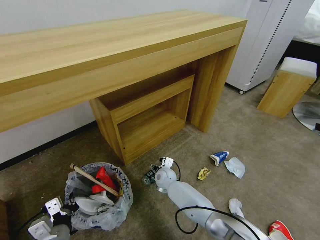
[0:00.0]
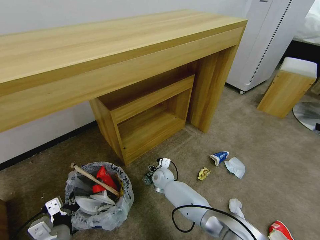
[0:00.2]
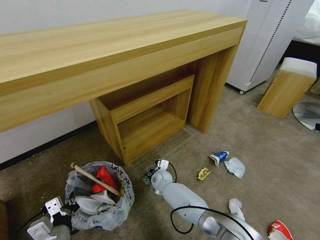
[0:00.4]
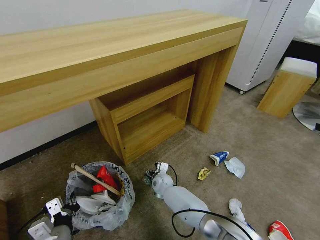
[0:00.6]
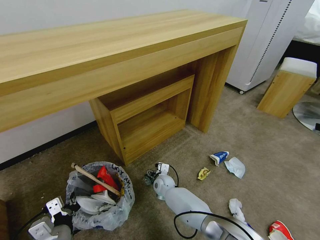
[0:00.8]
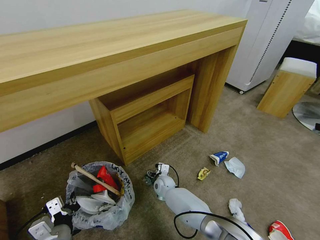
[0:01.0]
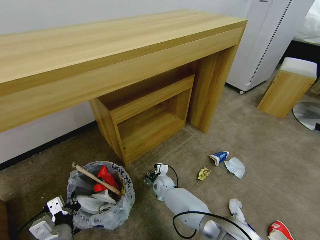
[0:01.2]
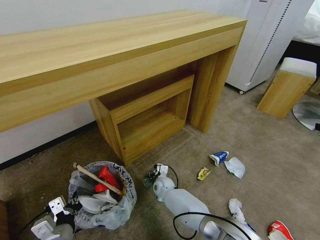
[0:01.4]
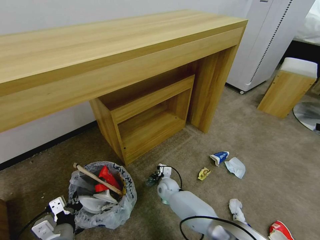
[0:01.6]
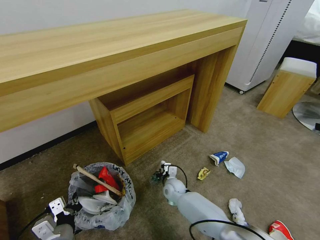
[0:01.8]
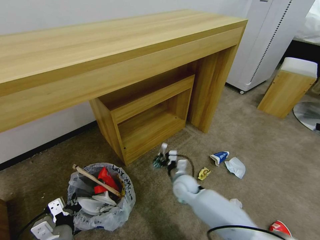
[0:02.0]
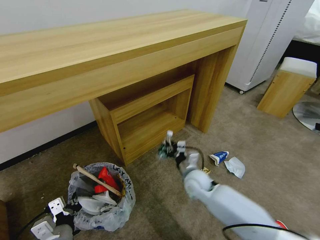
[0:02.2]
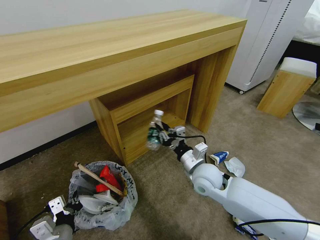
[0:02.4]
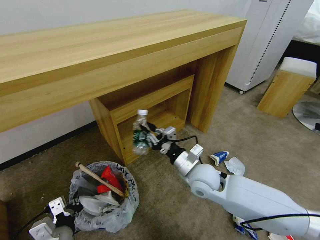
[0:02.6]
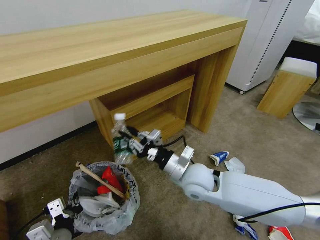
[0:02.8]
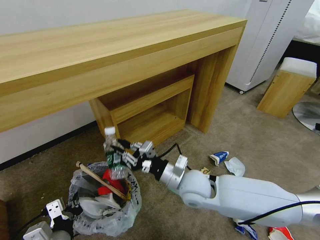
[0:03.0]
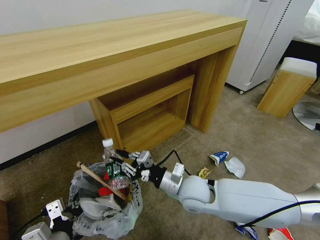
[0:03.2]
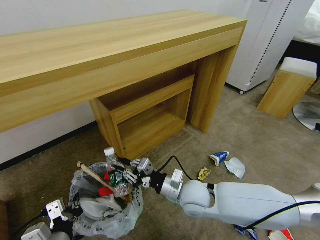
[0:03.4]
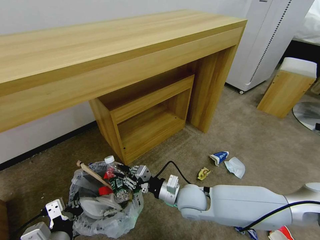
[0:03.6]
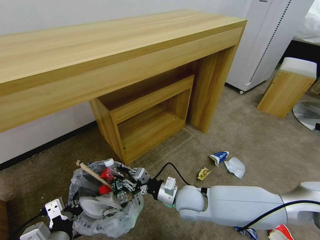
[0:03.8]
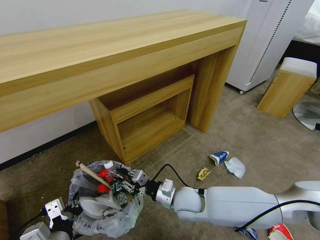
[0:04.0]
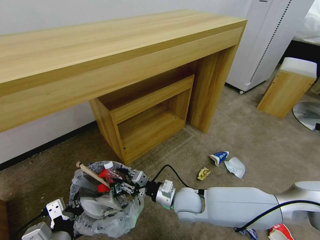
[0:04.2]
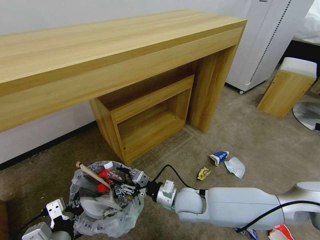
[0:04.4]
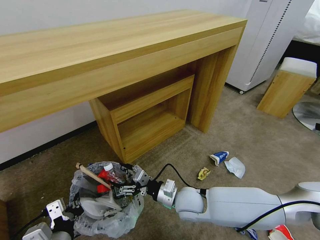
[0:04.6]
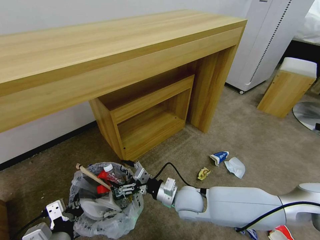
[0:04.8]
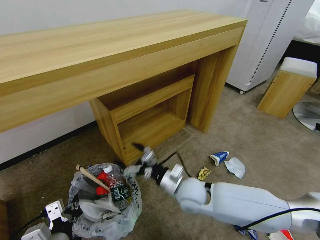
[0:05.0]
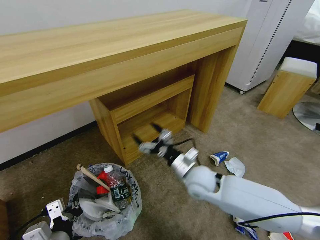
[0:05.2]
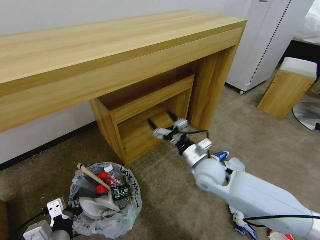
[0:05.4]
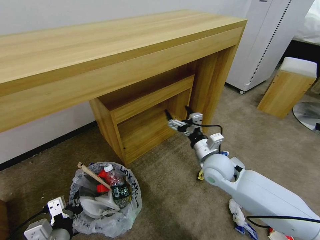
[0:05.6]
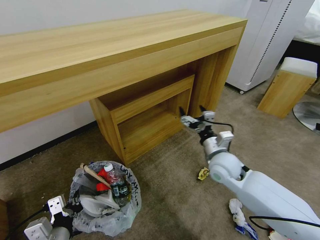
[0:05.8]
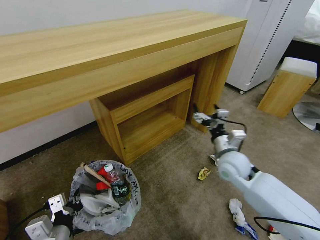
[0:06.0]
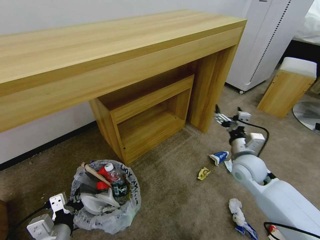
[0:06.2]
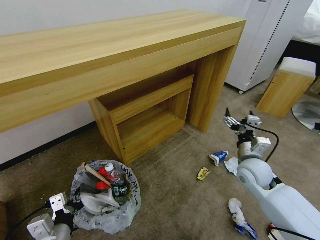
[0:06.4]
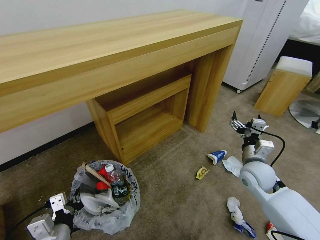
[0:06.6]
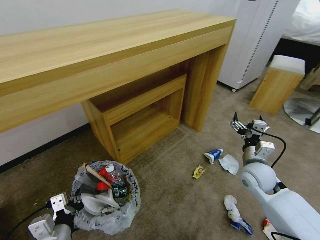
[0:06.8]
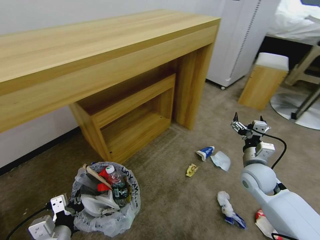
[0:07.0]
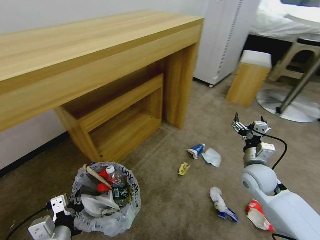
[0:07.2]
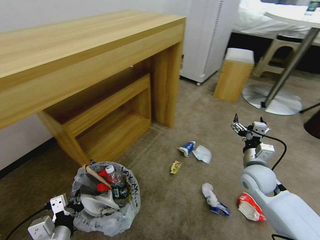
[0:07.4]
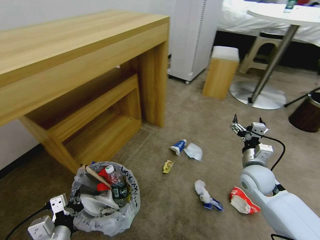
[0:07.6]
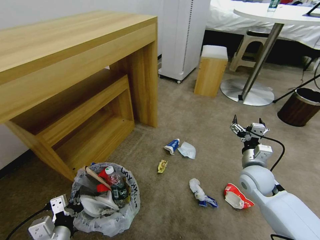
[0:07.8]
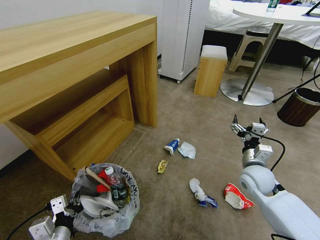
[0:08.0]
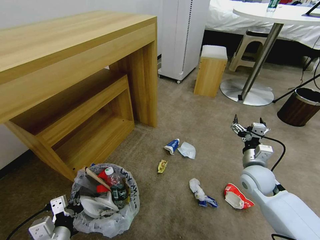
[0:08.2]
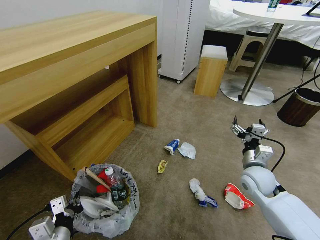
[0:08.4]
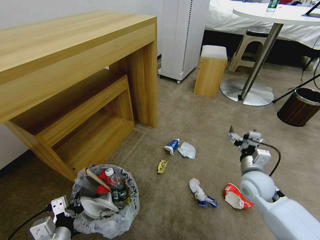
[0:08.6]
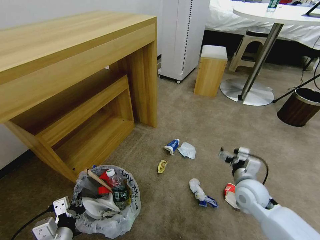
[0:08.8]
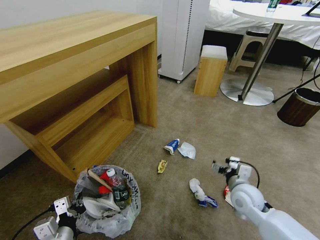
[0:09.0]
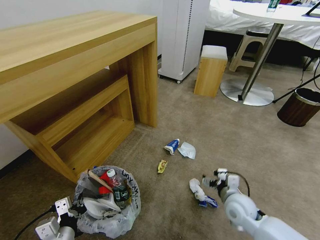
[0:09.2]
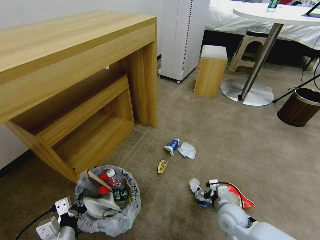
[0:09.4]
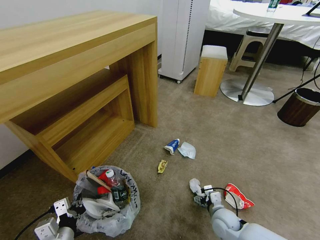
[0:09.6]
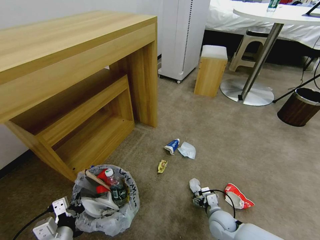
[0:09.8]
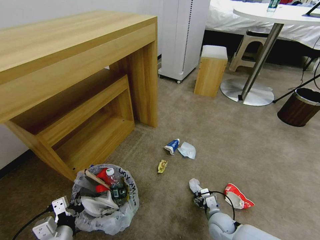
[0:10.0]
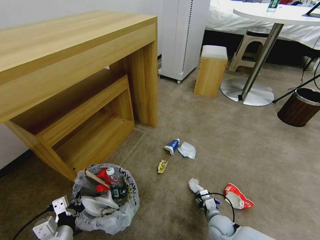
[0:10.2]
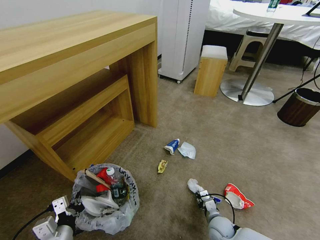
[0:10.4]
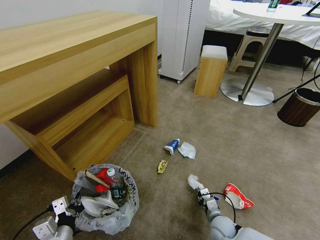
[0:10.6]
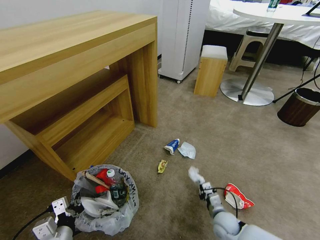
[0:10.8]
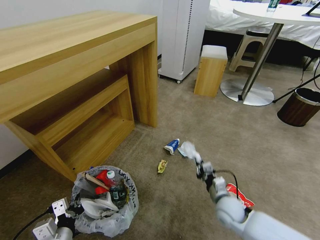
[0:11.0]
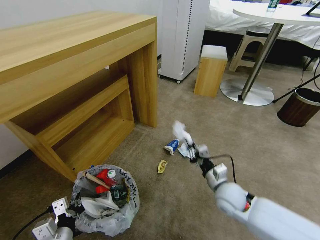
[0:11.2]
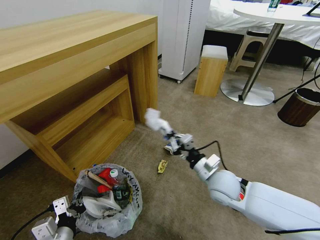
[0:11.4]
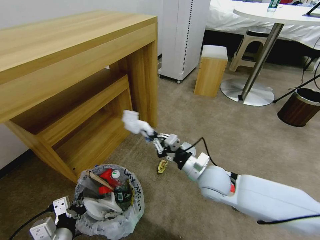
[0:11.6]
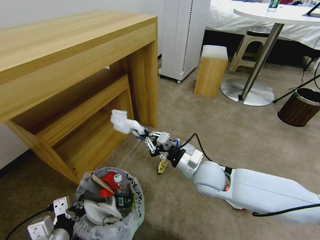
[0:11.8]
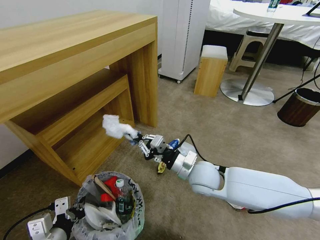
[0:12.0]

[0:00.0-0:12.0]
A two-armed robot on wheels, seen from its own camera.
Task of the whole recording: Pick up the trash bin and place the garbage on the floor into it.
0:00.0 to 0:01.6: The right gripper goes about 5 cm downward, and closes its fingers.
0:01.6 to 0:03.0: The right gripper heads upward and backward, covering approximately 25 cm; the left gripper ends up approximately 5 cm from where it was.
0:03.0 to 0:04.4: The right gripper is displaced downward by approximately 10 cm.
0:04.4 to 0:06.0: The right gripper is displaced to the right, upward and forward by some 20 cm, and opens.
0:06.0 to 0:07.6: The right gripper moves to the right, roughly 5 cm.
0:07.6 to 0:09.0: The right gripper heads downward, covering about 5 cm.
0:09.0 to 0:10.4: The right gripper travels downward by roughly 20 cm, and closes up.
0:10.4 to 0:12.0: The left gripper moves upward, roughly 5 cm. The right gripper shifts some 30 cm upward and to the left, and closes up.

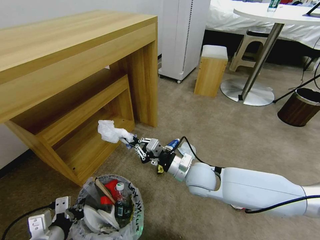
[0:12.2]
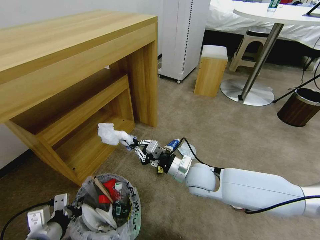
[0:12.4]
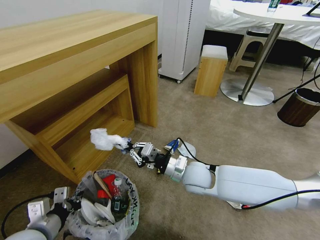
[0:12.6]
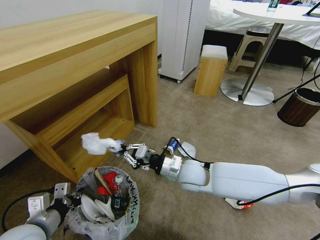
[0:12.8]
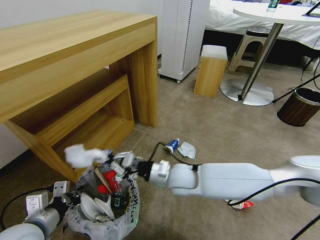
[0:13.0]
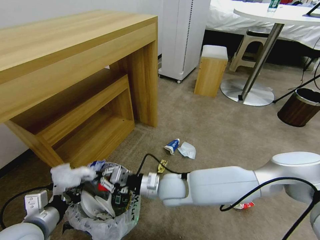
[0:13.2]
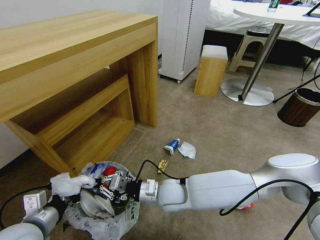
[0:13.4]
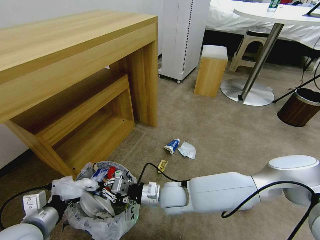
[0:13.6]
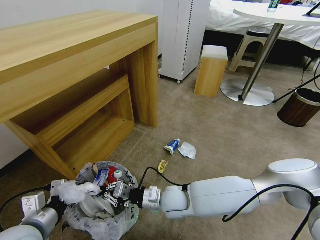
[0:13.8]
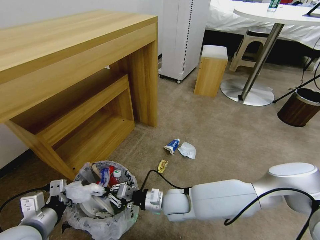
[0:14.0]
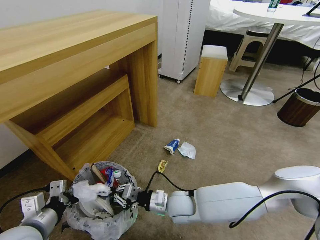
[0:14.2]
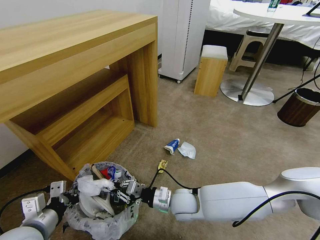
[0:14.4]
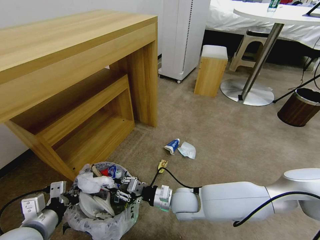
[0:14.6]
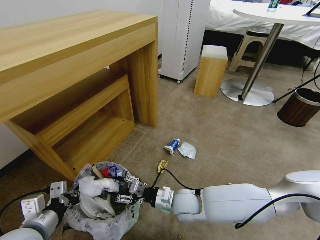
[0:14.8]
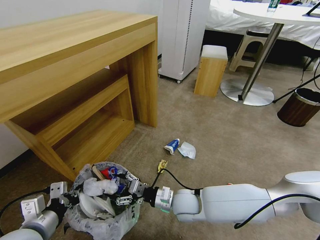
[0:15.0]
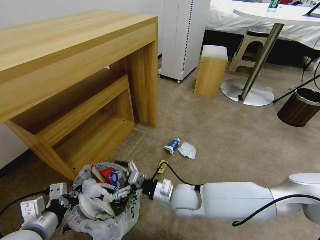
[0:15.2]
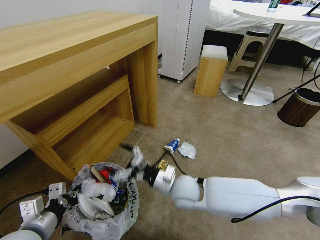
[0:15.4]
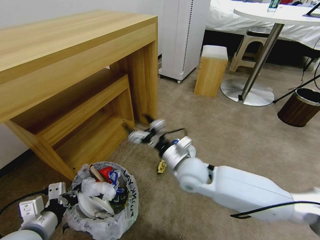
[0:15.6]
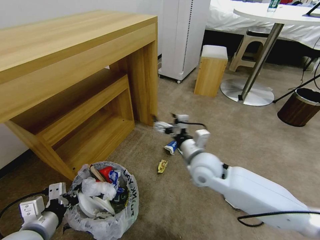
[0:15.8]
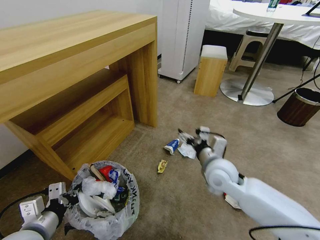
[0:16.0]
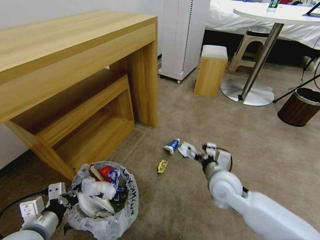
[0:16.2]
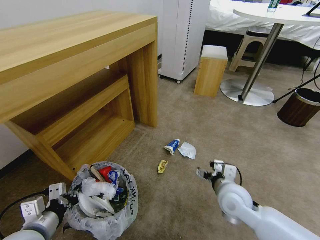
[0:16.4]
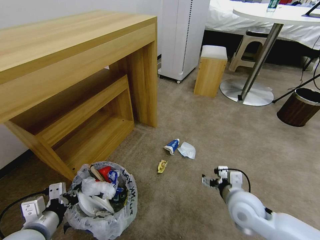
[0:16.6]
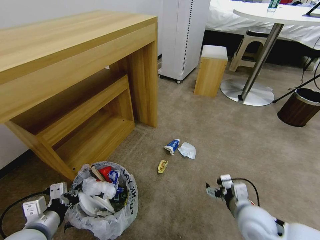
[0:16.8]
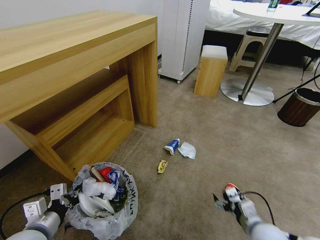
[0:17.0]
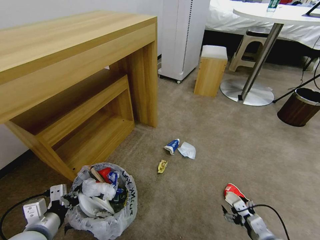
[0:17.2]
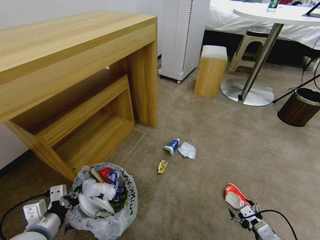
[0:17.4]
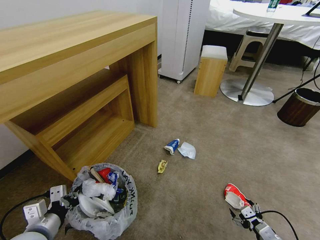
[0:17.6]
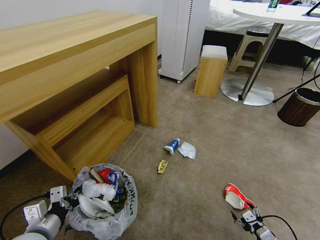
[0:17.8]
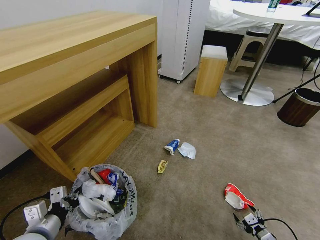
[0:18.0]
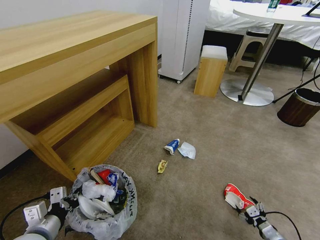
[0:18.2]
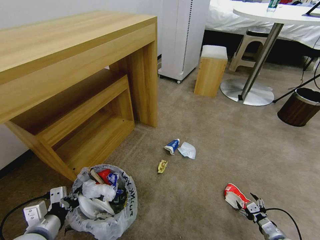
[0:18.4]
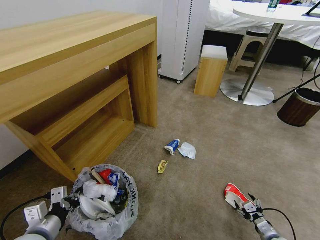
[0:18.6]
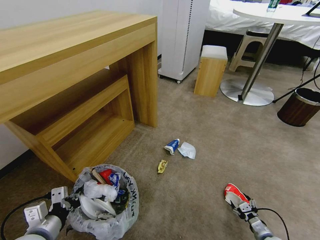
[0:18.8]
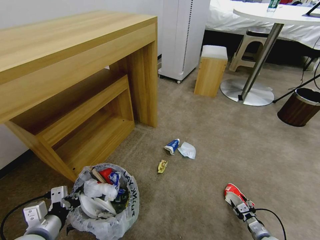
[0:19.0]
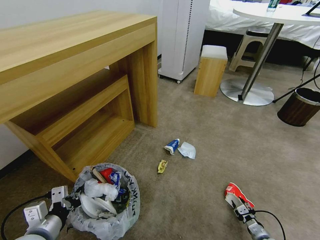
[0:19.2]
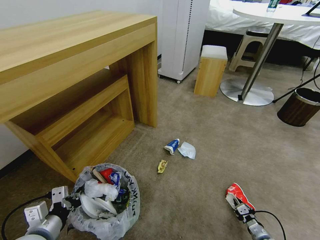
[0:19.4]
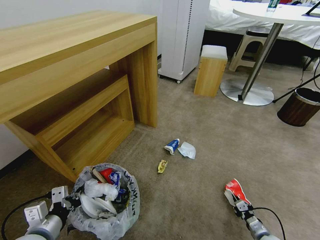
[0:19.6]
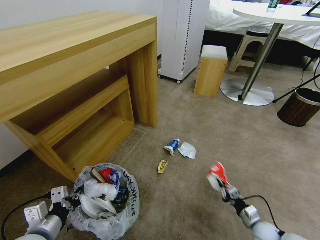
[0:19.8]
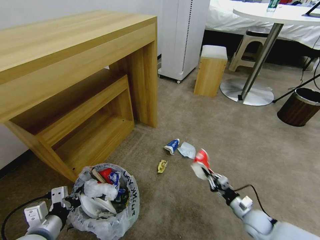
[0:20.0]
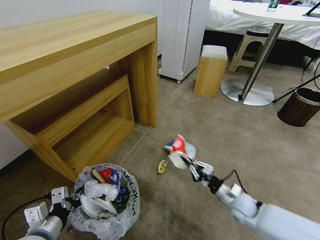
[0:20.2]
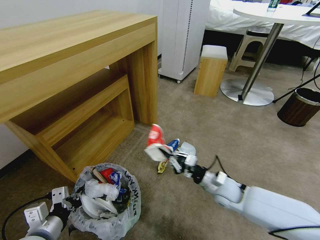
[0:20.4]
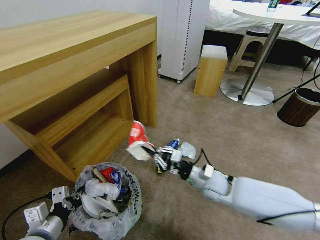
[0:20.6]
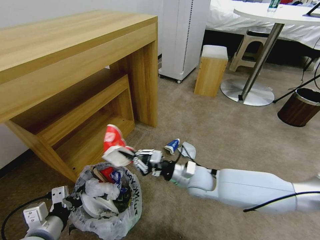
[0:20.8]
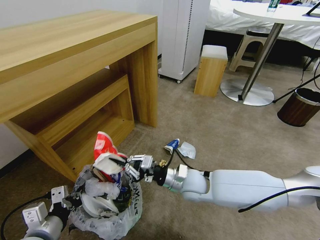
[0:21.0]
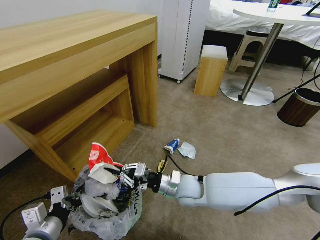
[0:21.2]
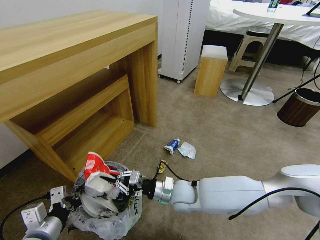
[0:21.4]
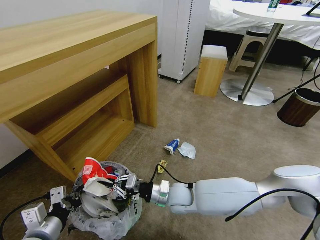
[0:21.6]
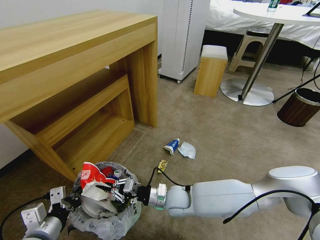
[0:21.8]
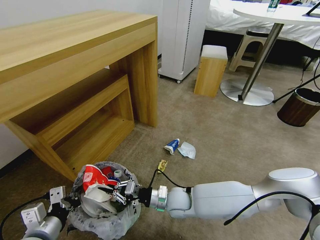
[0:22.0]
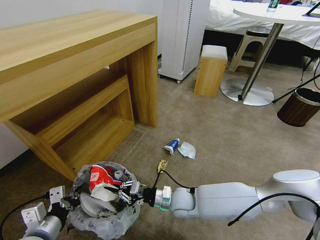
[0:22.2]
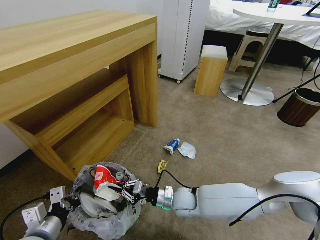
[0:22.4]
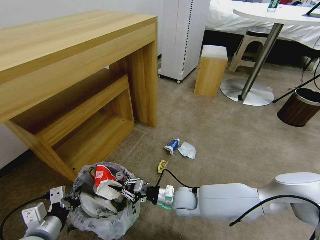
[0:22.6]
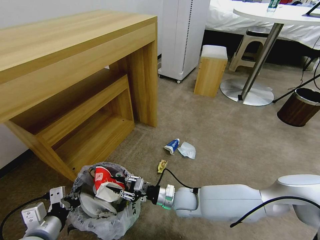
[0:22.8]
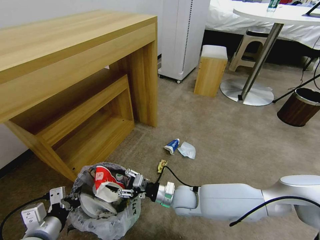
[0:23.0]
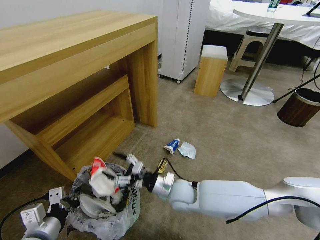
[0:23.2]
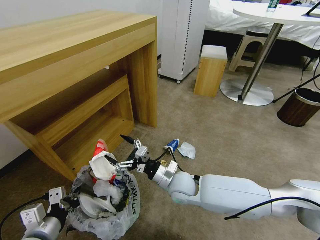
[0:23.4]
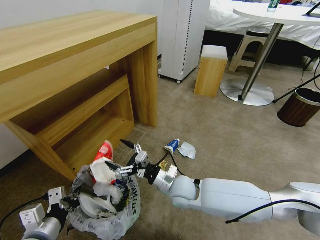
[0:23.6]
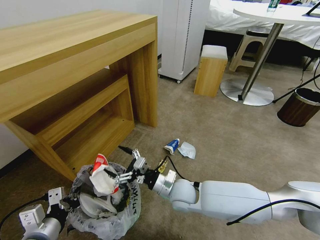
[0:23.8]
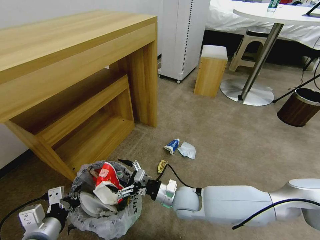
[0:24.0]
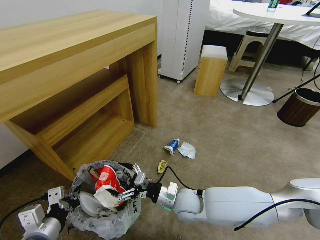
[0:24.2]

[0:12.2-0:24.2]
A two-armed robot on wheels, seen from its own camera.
Task of the whole recording: Pick up the trash bin and place the garbage on the floor into it.
0:12.2 to 0:13.8: The right gripper travels to the left and downward by about 10 cm. Meanwhile the left gripper moves approximately 5 cm.
0:13.8 to 0:15.2: The right gripper opens up.
0:15.2 to 0:16.6: The right gripper goes about 15 cm to the right.
0:16.6 to 0:18.2: The right gripper travels downward, to the right and backward by approximately 30 cm.
0:18.2 to 0:19.8: The right gripper goes about 5 cm forward, and closes up.
0:19.8 to 0:21.2: The right gripper is displaced to the left and upward by approximately 35 cm.
0:21.2 to 0:22.6: The right gripper shifts roughly 10 cm downward.
0:22.6 to 0:24.2: The right gripper opens up.
